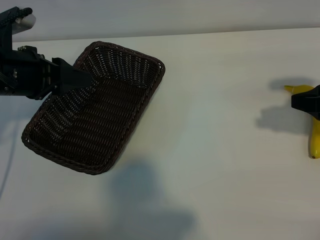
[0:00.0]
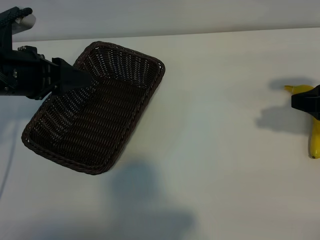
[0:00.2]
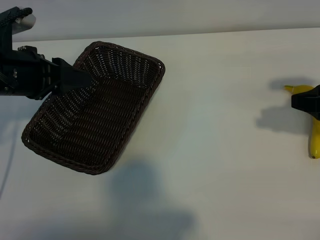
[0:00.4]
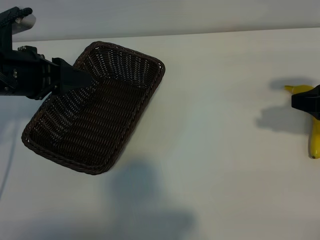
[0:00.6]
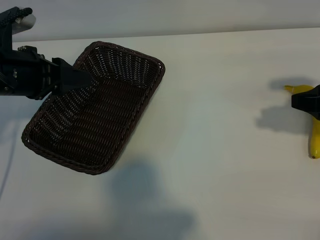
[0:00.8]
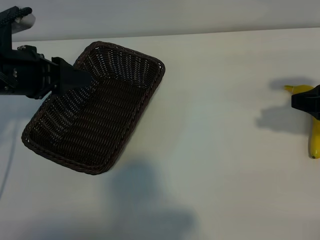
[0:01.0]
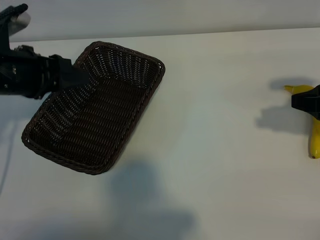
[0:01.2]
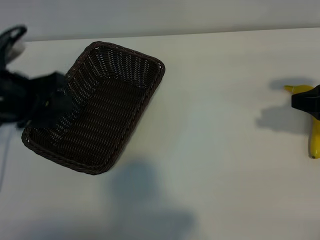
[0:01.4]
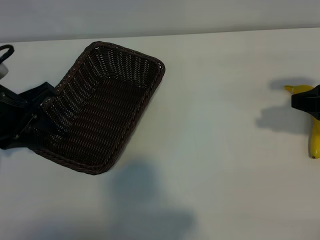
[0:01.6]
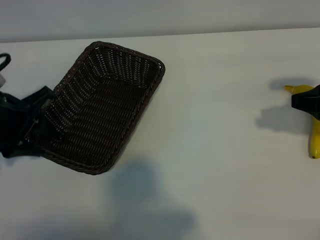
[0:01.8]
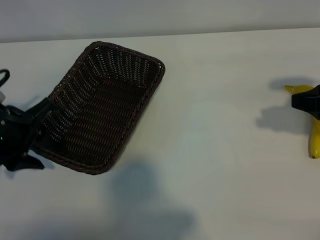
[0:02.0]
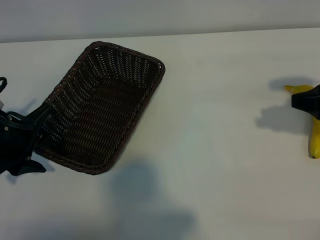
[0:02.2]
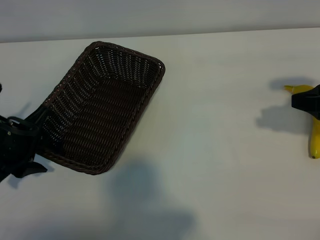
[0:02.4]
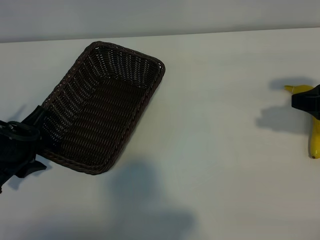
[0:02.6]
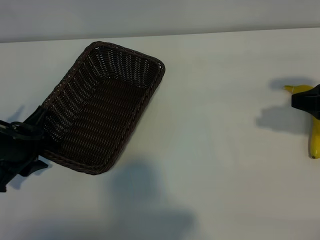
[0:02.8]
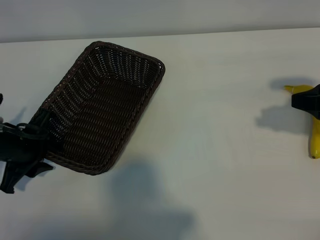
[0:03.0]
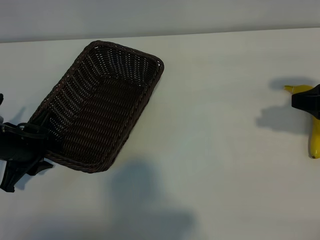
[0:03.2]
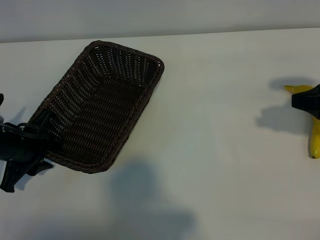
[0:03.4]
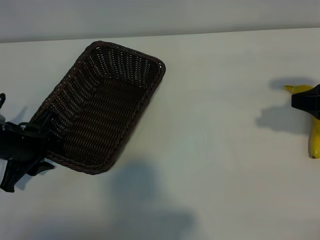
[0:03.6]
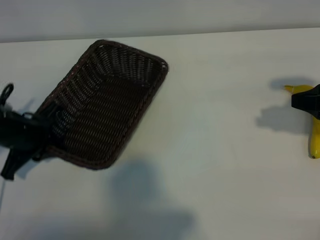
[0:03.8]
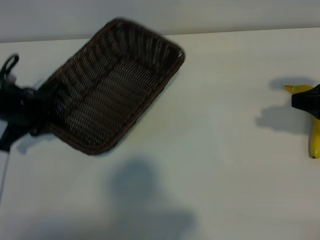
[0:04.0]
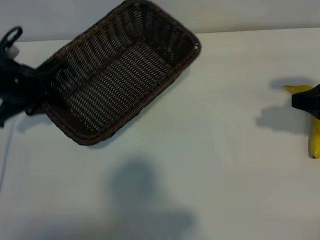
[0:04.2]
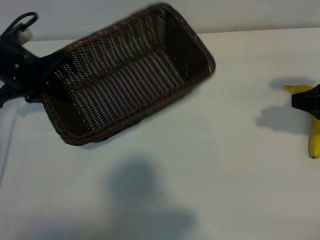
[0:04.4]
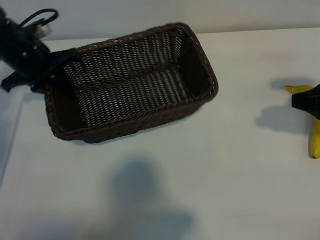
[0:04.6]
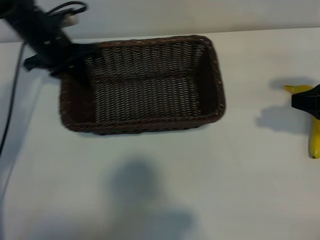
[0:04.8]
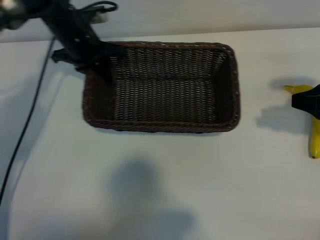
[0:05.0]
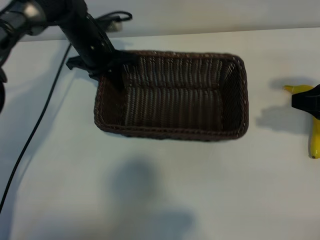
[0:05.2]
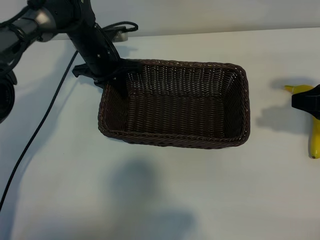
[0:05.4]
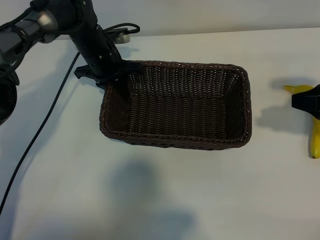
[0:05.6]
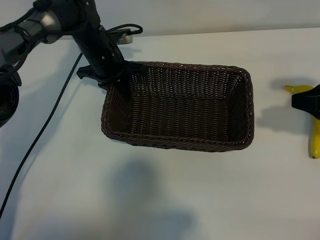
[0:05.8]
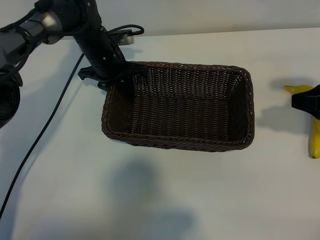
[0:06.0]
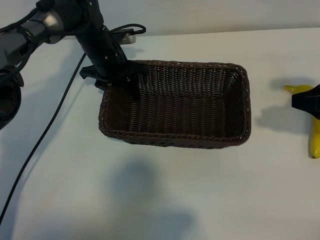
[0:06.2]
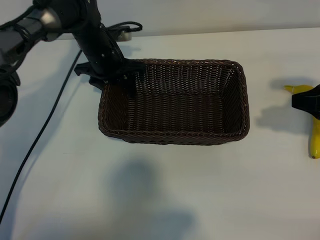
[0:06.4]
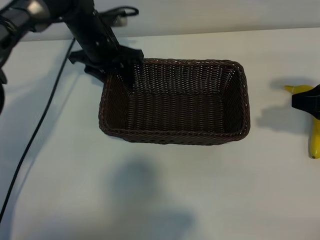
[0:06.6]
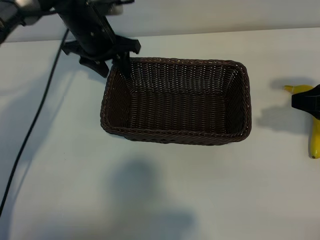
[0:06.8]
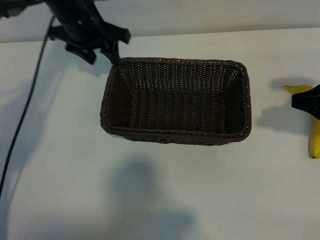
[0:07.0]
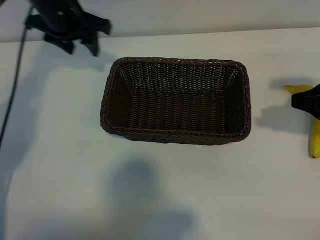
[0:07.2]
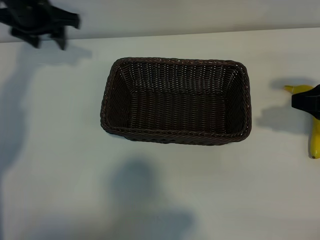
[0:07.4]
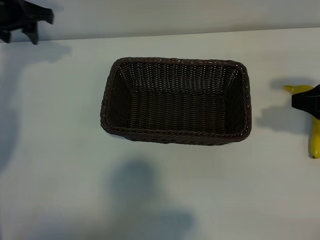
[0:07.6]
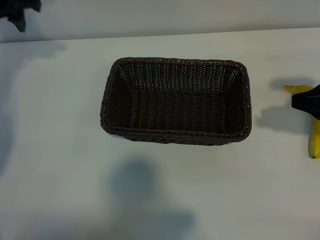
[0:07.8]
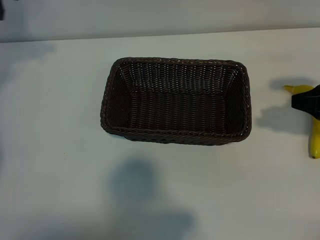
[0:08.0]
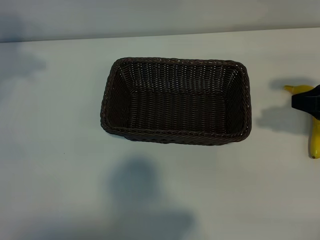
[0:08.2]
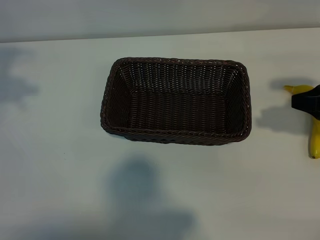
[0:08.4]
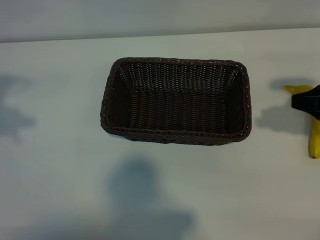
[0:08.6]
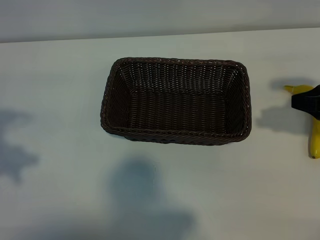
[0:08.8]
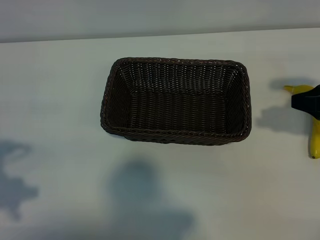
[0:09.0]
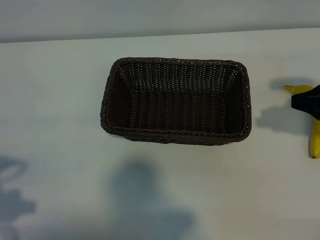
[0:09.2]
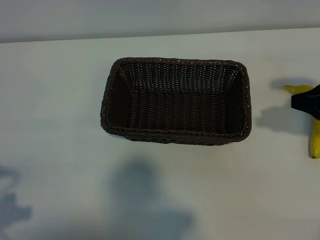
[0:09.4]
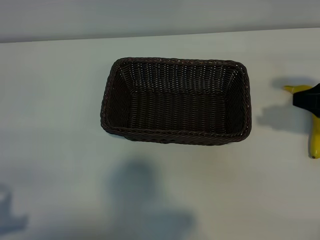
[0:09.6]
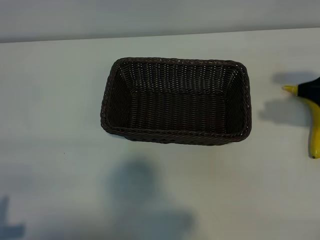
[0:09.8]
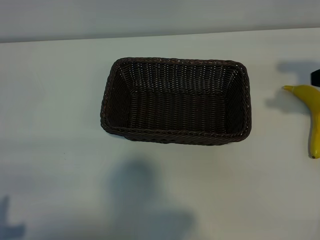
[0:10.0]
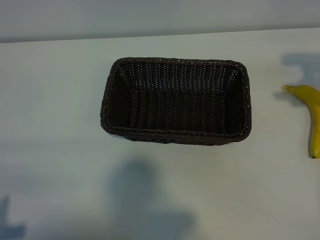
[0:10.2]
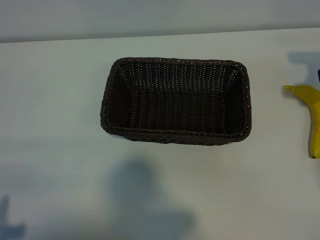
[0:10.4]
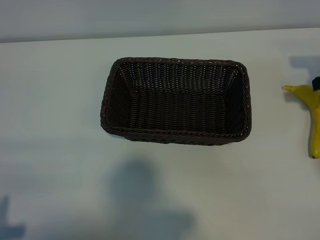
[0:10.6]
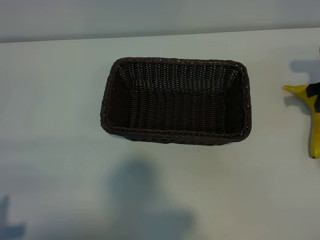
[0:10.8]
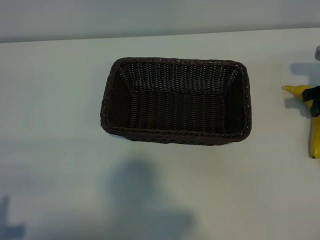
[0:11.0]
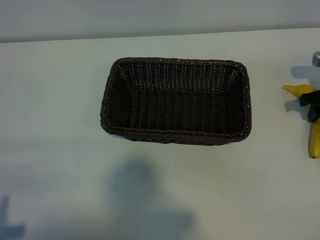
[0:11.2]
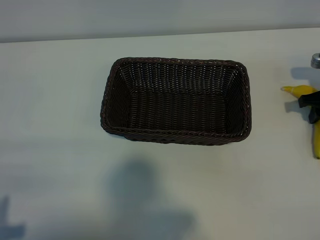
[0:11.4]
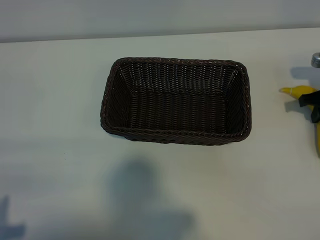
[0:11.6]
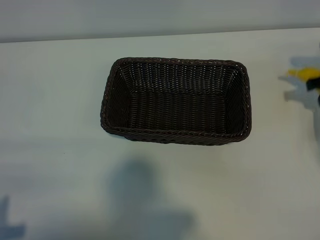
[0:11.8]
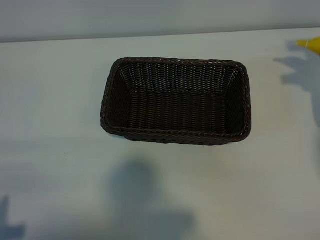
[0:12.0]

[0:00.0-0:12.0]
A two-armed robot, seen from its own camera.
Task of the whole recording: pick up the banana and put it into the basket.
Step, 0:01.0 to 0:03.6: Grasp the basket with the left gripper.
Step, 0:04.0 to 0:06.8: Place the basket in the center of the table with the left gripper.
Step, 0:07.0 to 0:11.2: Grasp the banana with right gripper.

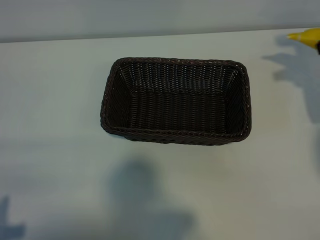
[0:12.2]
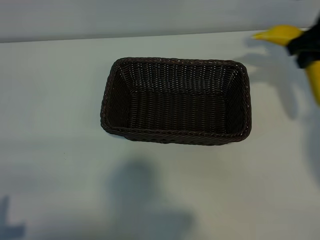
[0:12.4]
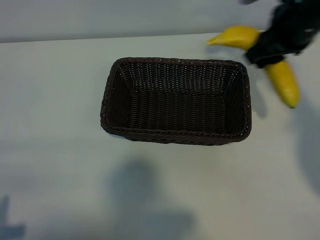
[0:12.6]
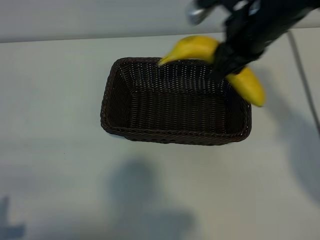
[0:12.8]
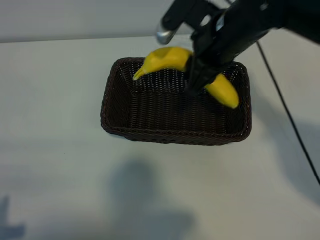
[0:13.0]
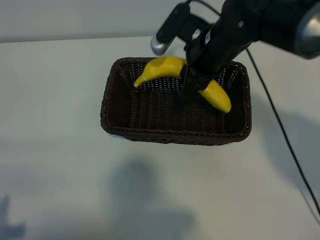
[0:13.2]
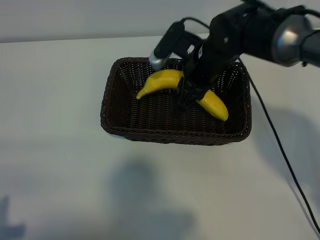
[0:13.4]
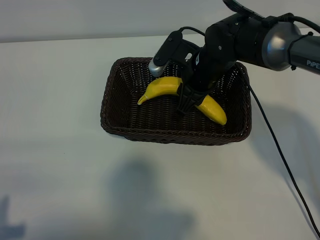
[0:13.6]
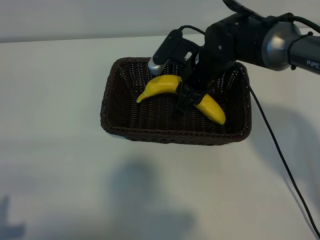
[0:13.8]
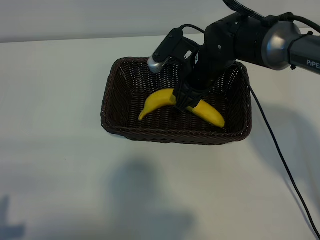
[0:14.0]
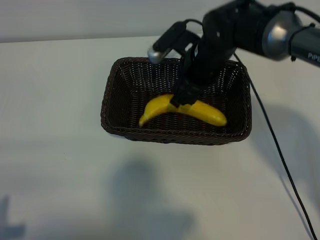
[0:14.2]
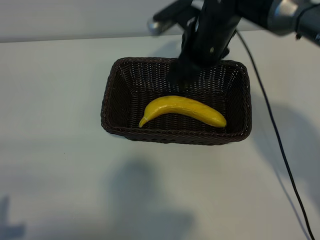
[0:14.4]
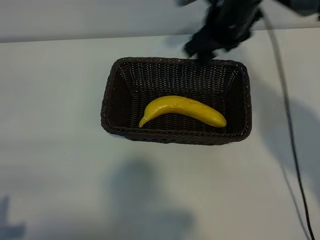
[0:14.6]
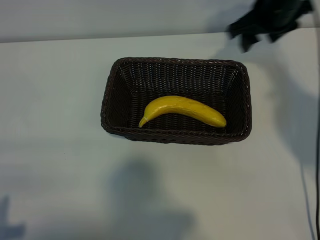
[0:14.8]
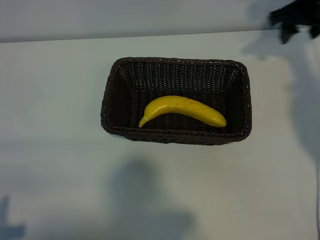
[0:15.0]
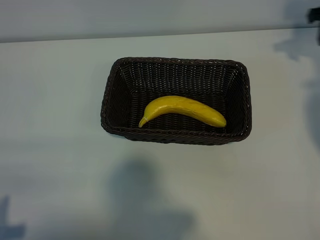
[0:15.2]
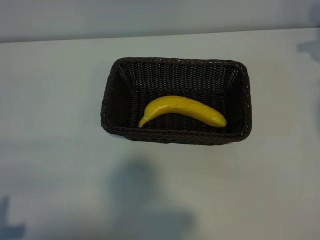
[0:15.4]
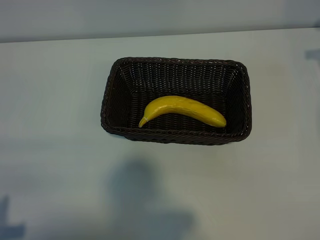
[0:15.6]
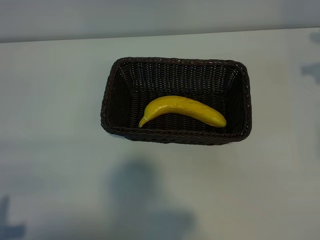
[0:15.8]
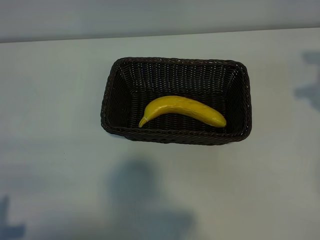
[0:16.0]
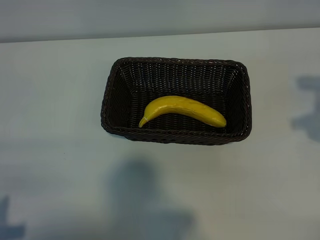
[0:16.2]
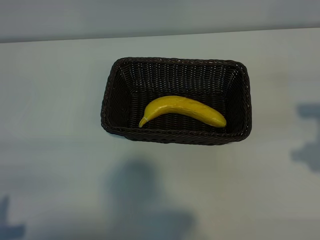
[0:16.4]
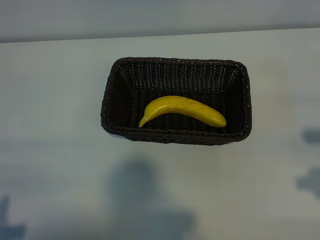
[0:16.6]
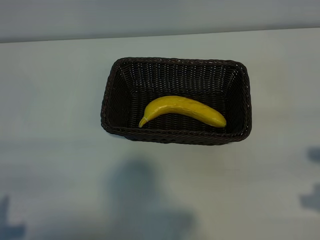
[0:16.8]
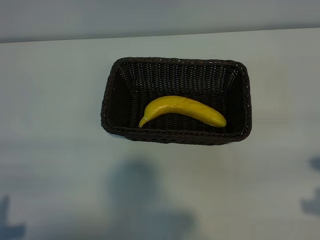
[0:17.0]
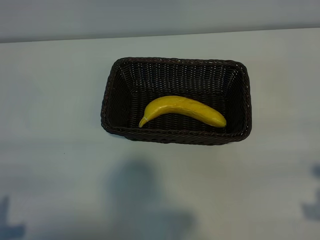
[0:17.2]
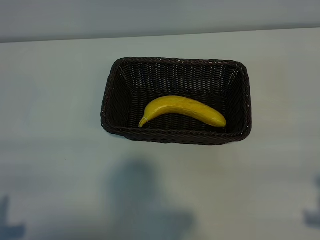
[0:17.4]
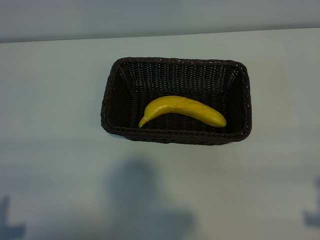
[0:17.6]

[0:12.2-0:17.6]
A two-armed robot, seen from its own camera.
Task of the whole recording: pick up the banana and put it into the basket.
Step, 0:12.2 to 0:14.0: Place the banana in the basket with right gripper.
